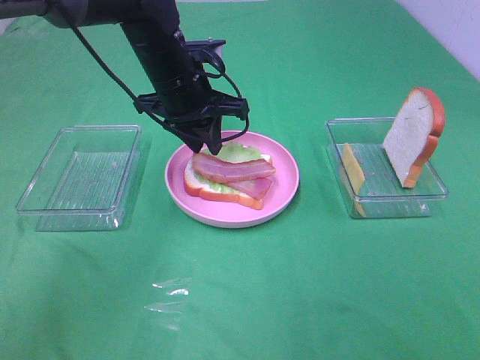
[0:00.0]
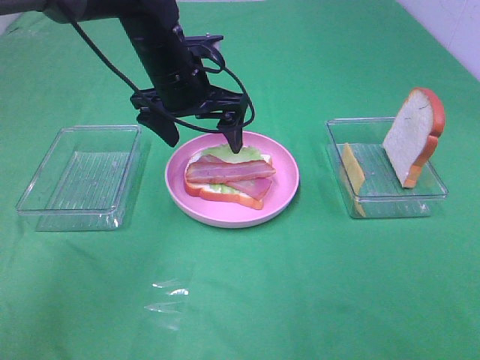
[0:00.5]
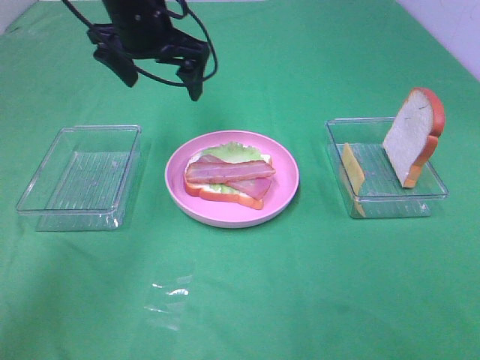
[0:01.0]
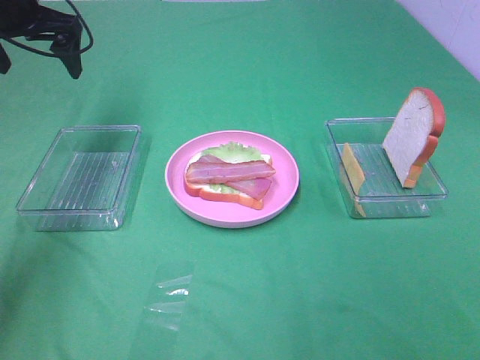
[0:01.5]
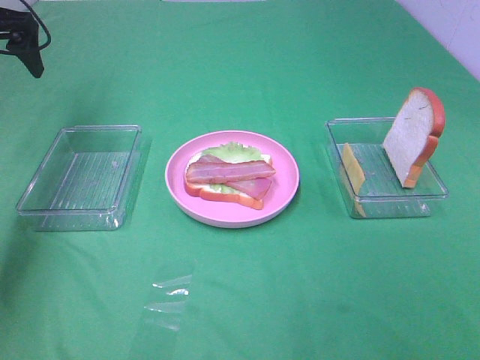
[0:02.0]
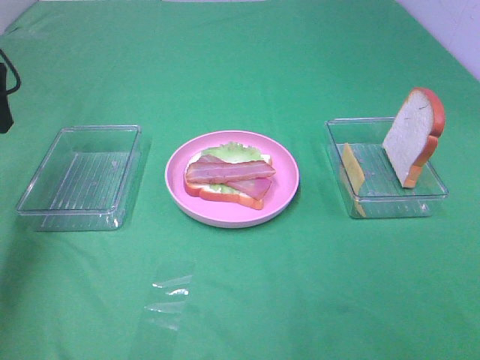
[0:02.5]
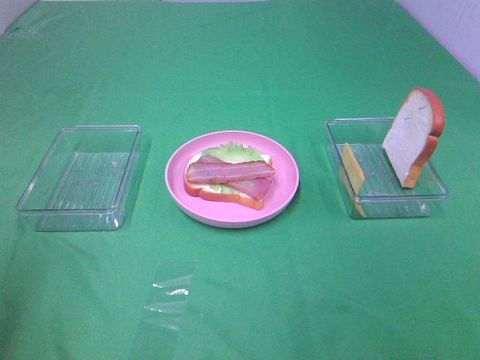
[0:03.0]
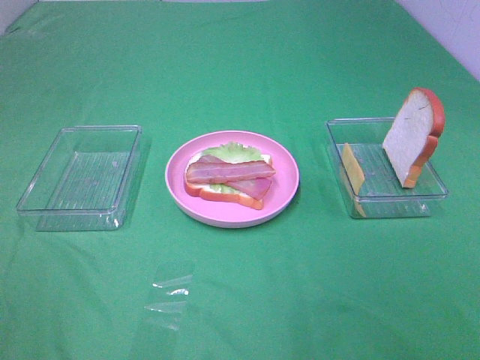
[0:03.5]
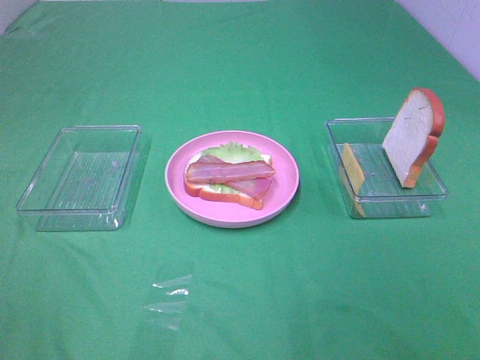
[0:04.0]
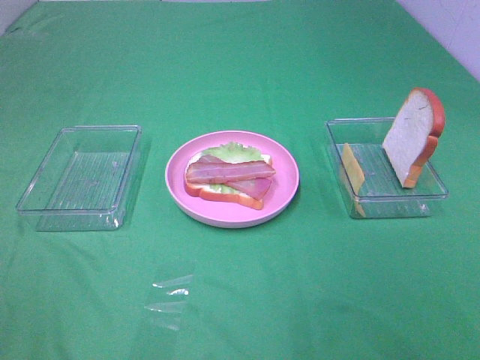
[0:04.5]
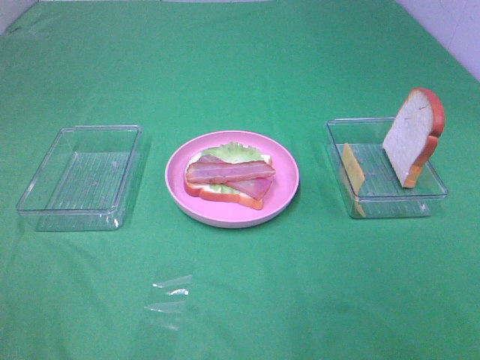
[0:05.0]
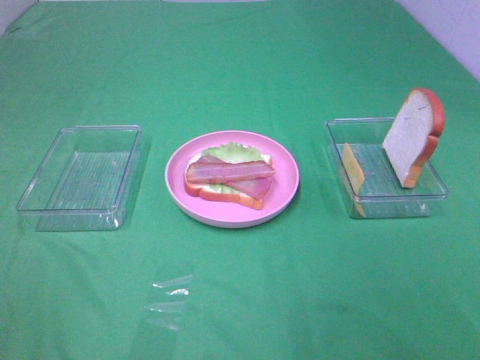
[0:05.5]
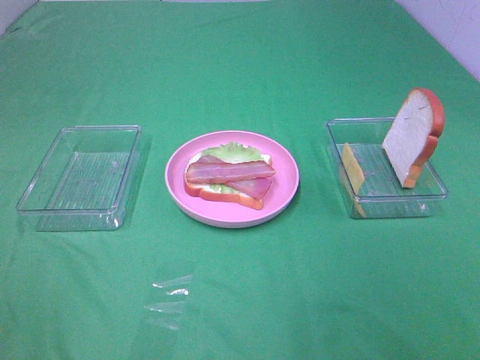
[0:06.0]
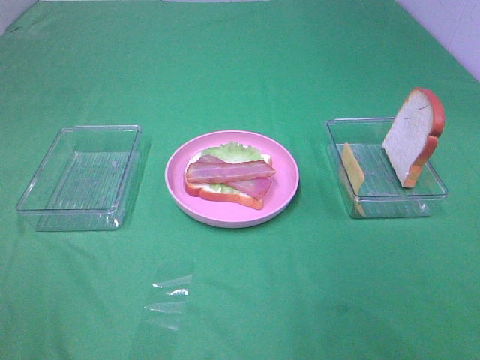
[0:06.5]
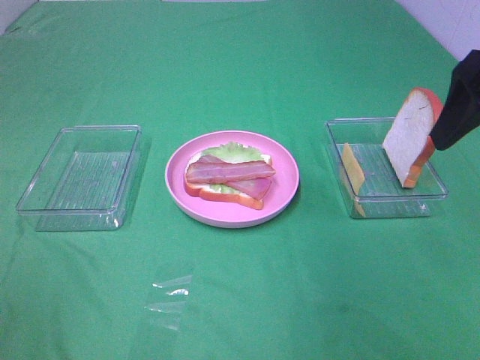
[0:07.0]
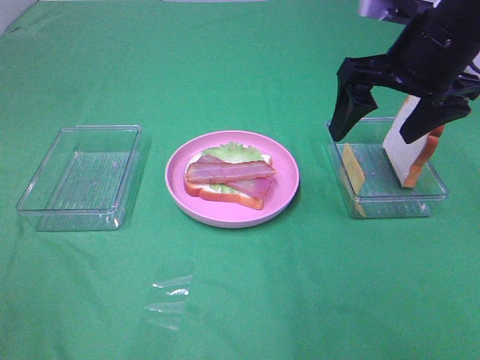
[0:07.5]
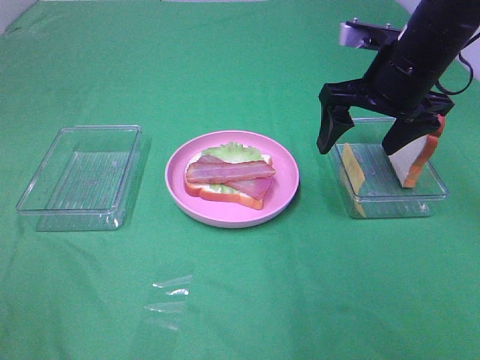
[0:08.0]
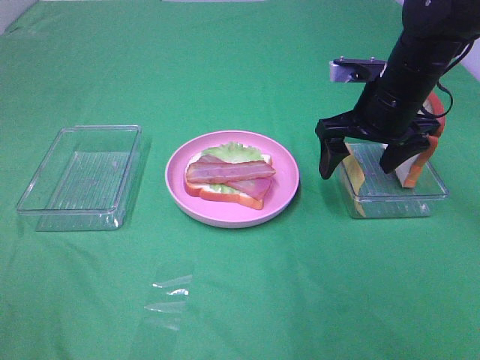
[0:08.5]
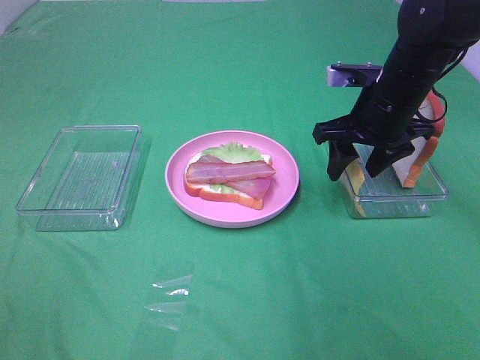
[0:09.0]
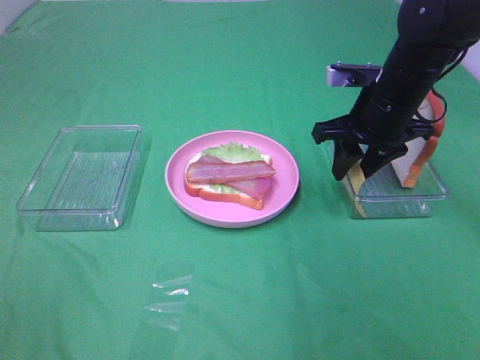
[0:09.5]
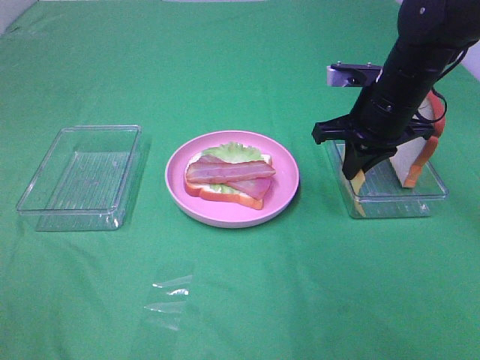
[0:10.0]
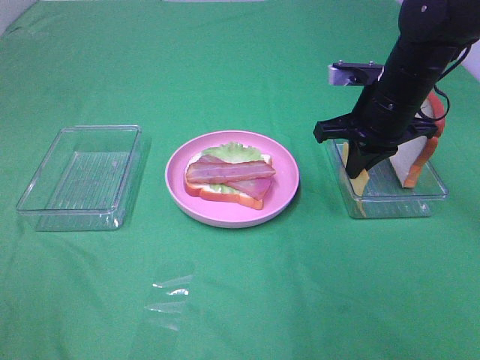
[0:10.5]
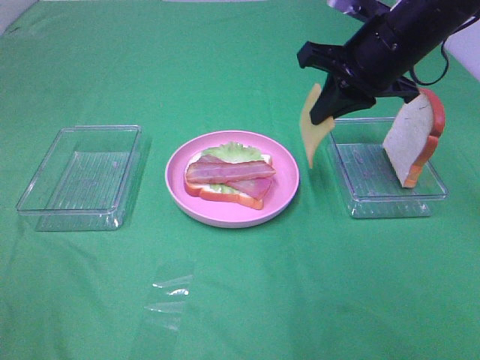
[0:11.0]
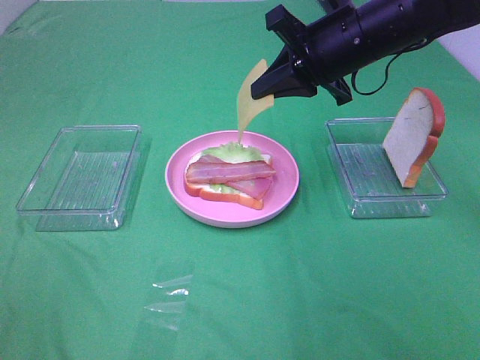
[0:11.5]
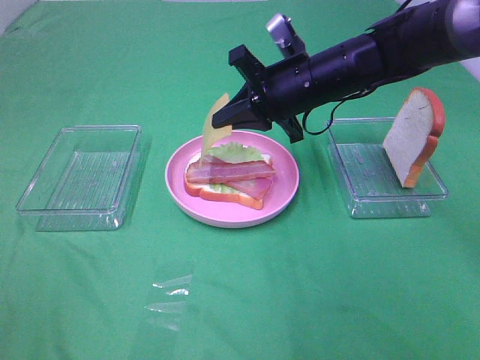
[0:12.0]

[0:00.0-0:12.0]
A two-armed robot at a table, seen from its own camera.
Task of the whole recording: Make sandwiches.
Step, 0:00.5 to 0:10.5: Right hand:grab the cheese slice.
0:00.0 to 0:02.0: The left gripper is displaced to the left by some 25 cm, and opens up.
0:02.0 to 0:04.0: The left gripper travels backward by about 50 cm.
0:06.0 to 0:08.0: The right gripper is displaced forward by approximately 35 cm.
0:08.0 to 0:10.0: The right gripper goes approximately 5 cm downward, and closes up.
0:10.0 to 0:12.0: The right gripper travels to the left by about 10 cm.

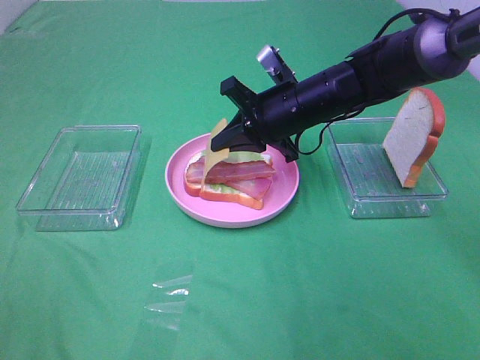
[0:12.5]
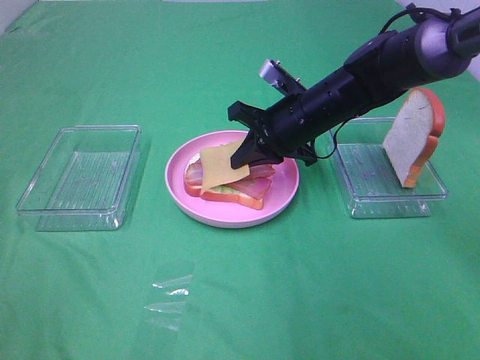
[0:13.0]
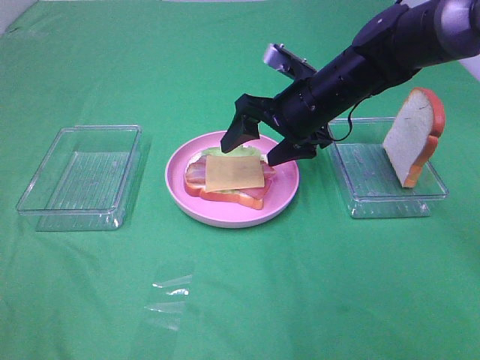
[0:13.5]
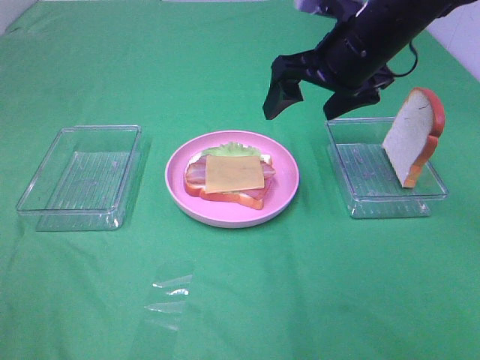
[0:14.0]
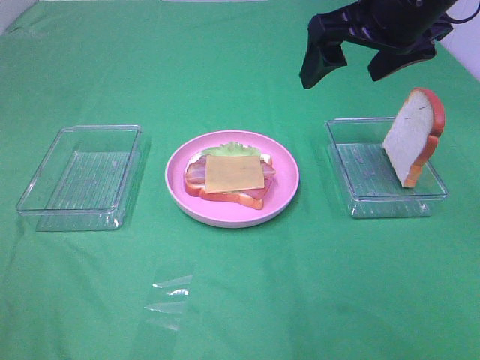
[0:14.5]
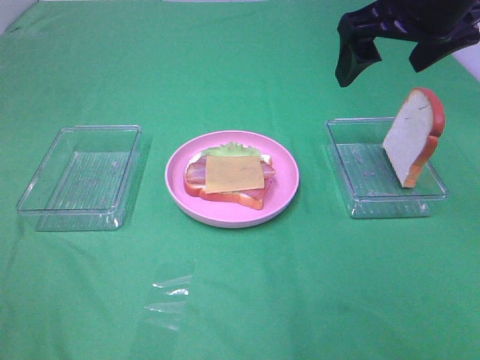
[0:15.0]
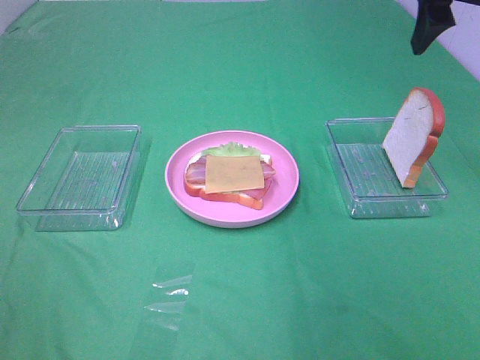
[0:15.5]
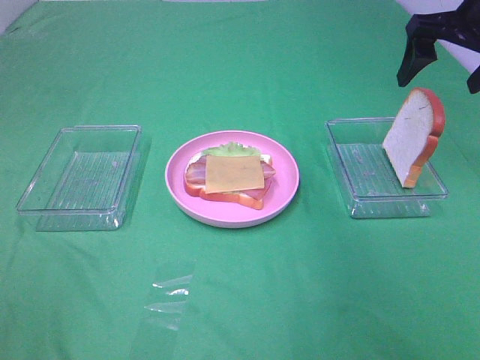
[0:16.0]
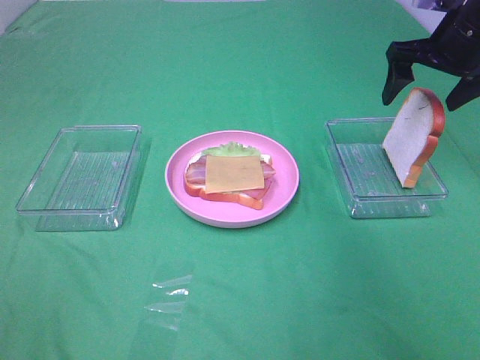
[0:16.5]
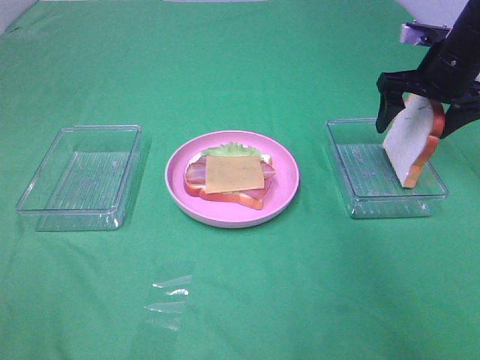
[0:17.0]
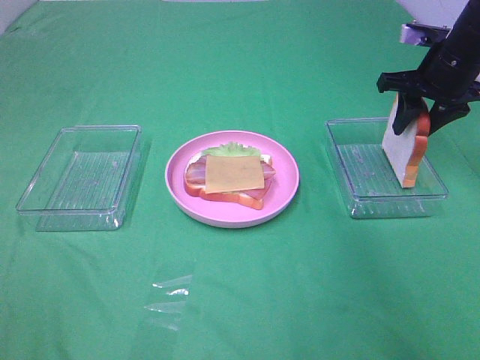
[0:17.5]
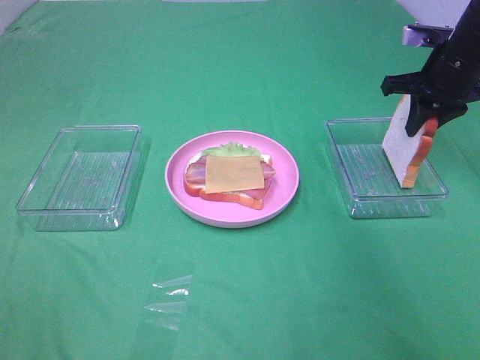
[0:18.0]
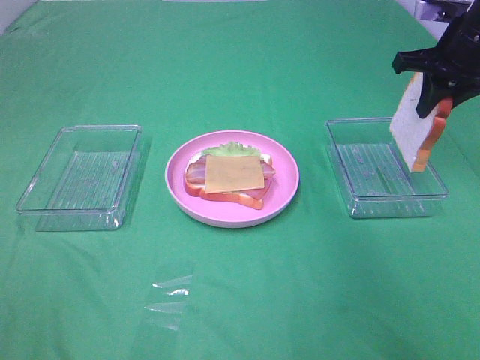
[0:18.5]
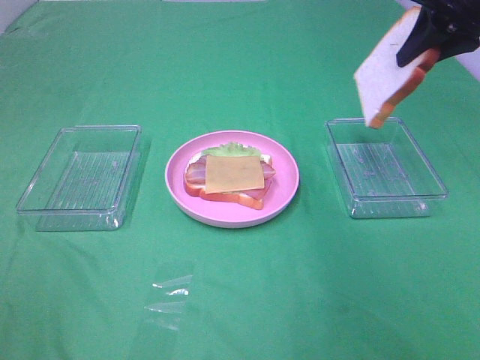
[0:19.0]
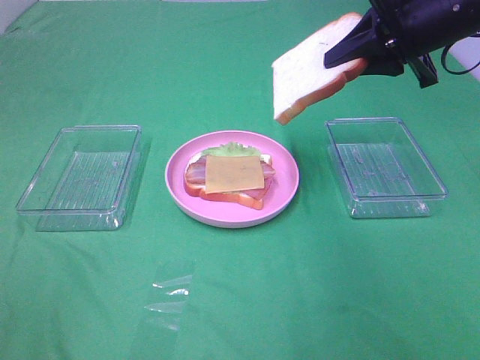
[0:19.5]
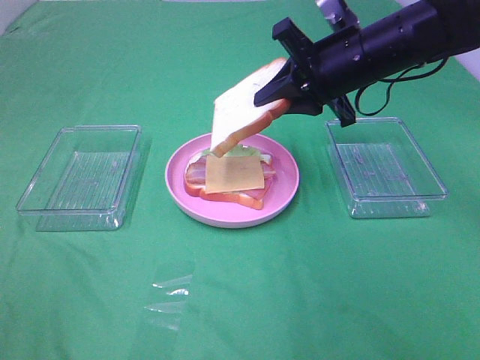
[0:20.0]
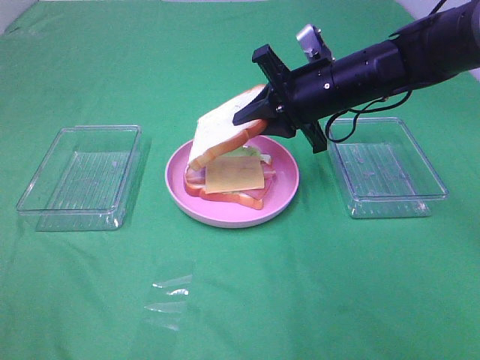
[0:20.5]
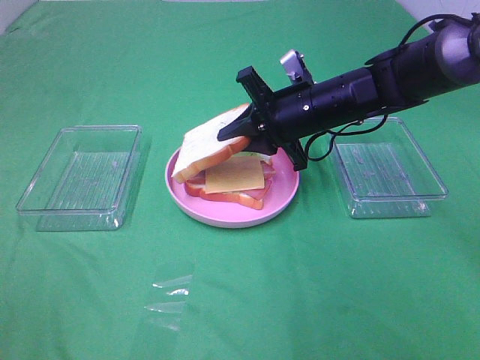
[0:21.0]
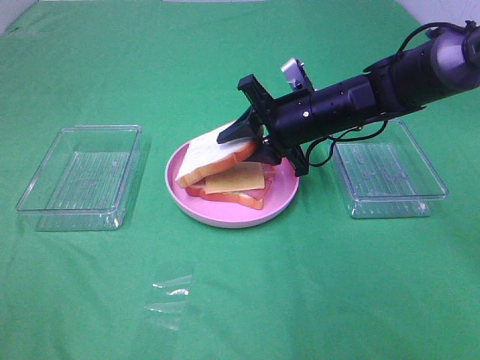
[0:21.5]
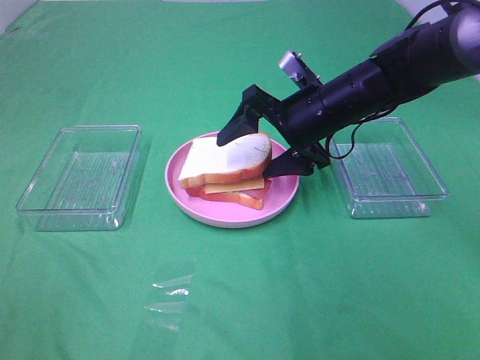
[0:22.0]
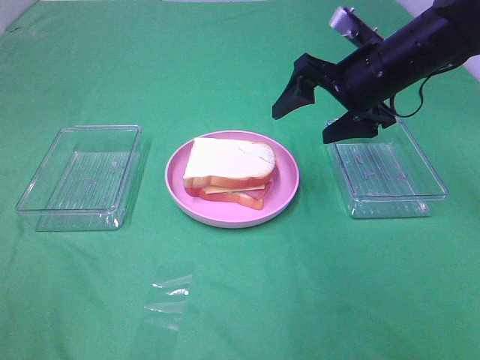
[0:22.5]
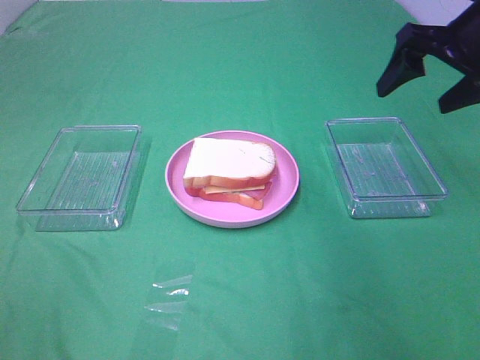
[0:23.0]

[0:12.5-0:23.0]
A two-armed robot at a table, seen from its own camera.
Task of the whole recording: Make sandwiches.
Step, 0:14.0 to 0:18.0: Right hand:grab the bread slice.
Step, 0:18.5 to 0:22.0: Right hand:place the bread slice on the cheese slice.
0:12.5 to 0:14.5: The right gripper is displaced upward and to the right by some 20 cm, and opens up.
0:14.5 to 0:16.5: The right gripper moves to the right, forward and downward, roughly 15 cm.
0:16.5 to 0:19.0: The right gripper moves upward, about 5 cm, and closes.
0:19.0 to 0:21.0: The right gripper shifts roughly 25 cm downward and to the left.
0:21.0 to 0:23.0: The right gripper is displaced to the right and upward by approximately 20 cm, and opens its fingers.

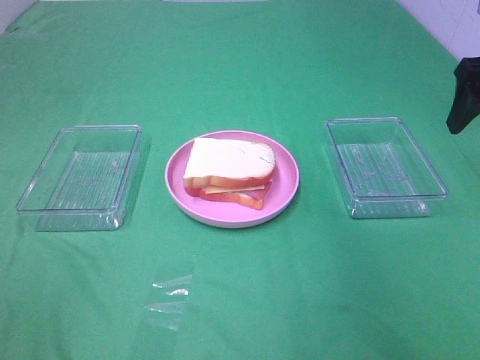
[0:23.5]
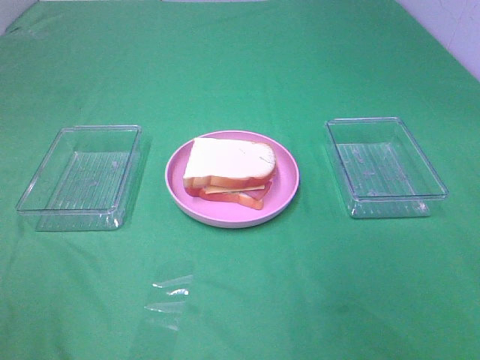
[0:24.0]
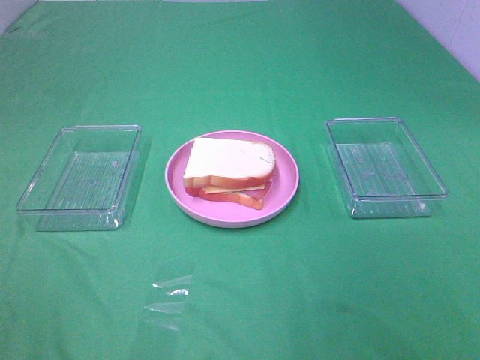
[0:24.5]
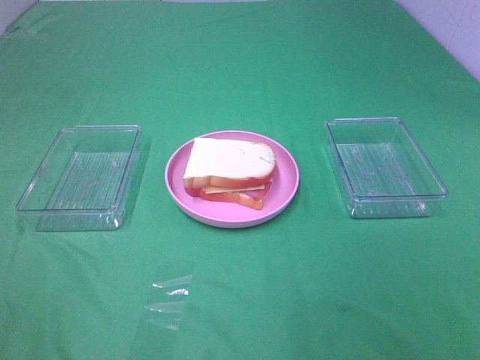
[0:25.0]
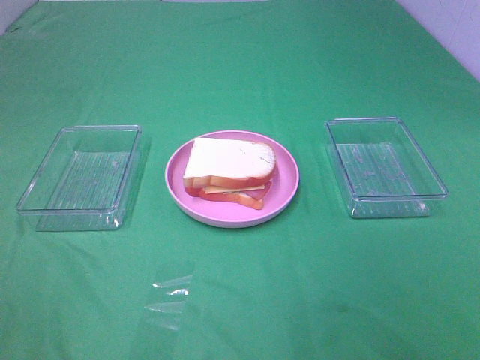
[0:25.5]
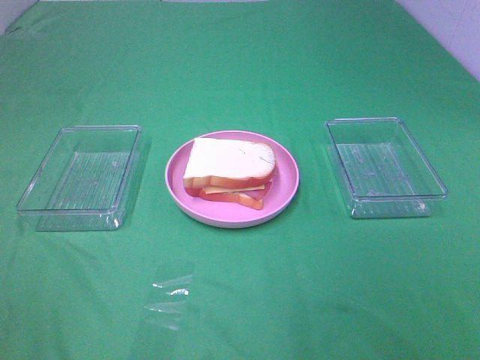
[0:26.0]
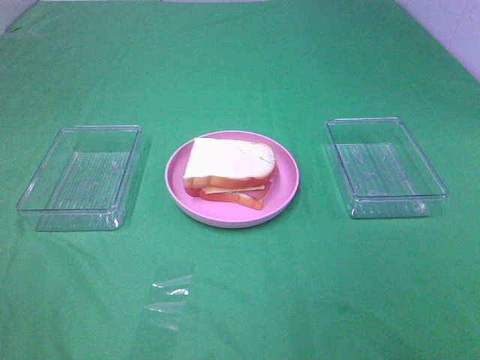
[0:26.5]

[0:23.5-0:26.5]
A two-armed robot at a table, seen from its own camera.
Task of the whole recording: Make sandwiches.
0:23.5 to 0:25.0: The right gripper is displaced backward by about 30 cm.
